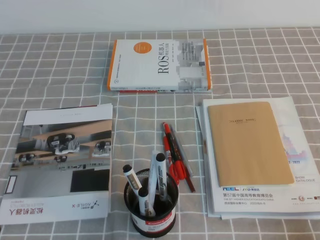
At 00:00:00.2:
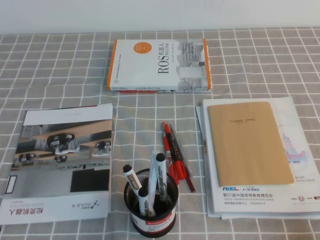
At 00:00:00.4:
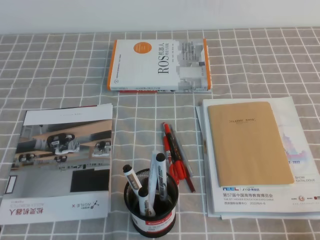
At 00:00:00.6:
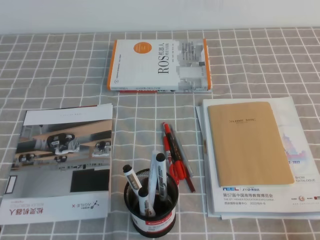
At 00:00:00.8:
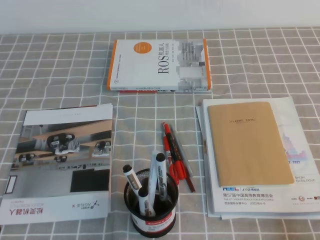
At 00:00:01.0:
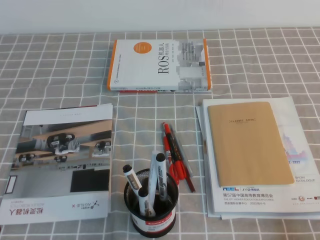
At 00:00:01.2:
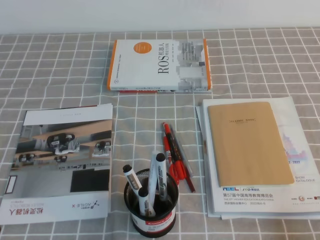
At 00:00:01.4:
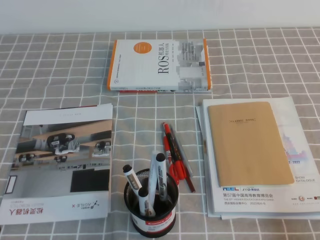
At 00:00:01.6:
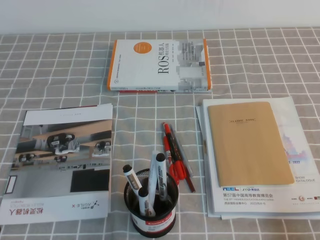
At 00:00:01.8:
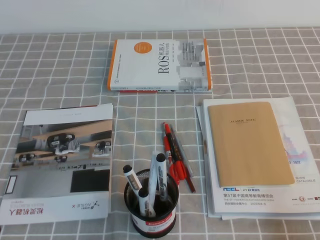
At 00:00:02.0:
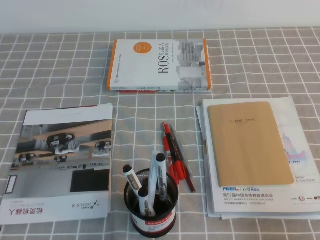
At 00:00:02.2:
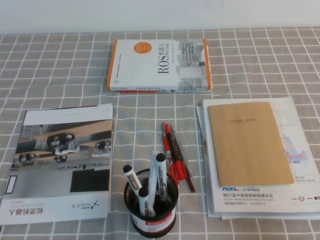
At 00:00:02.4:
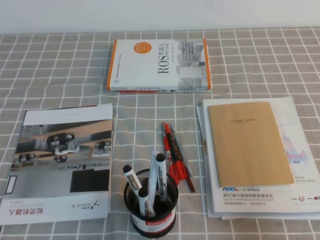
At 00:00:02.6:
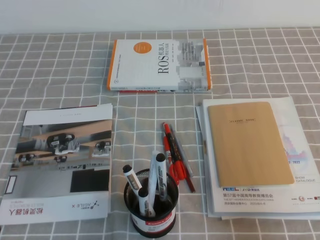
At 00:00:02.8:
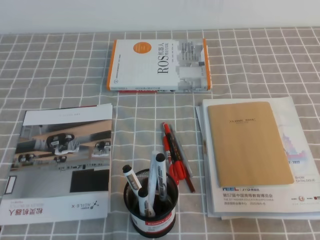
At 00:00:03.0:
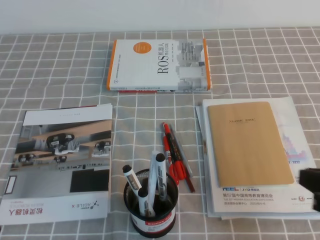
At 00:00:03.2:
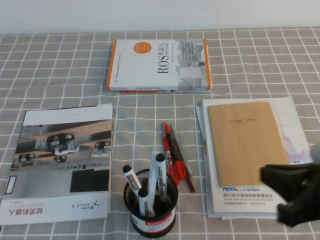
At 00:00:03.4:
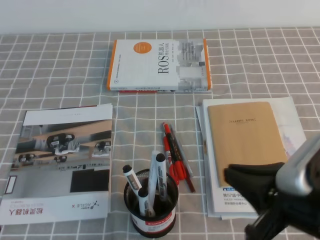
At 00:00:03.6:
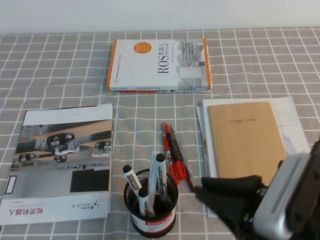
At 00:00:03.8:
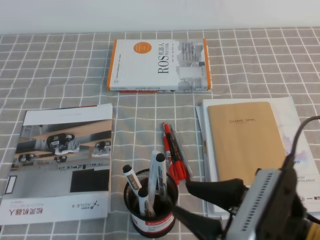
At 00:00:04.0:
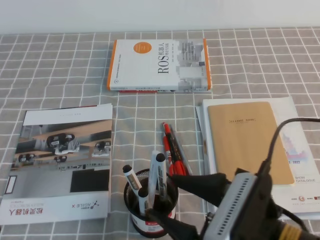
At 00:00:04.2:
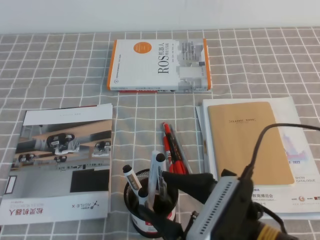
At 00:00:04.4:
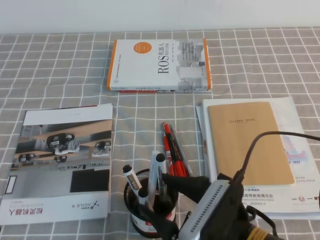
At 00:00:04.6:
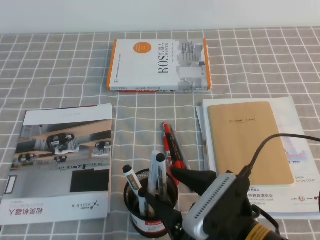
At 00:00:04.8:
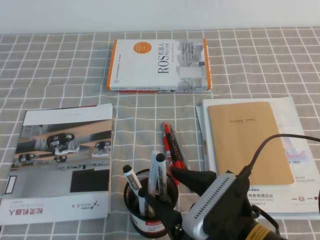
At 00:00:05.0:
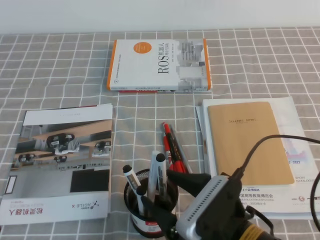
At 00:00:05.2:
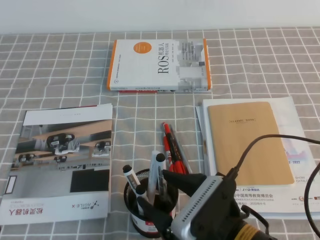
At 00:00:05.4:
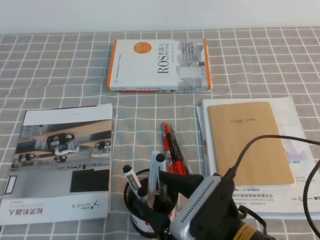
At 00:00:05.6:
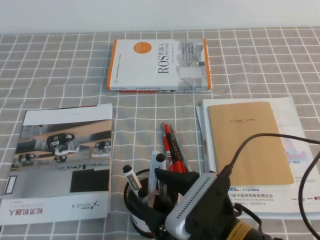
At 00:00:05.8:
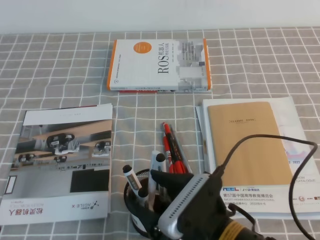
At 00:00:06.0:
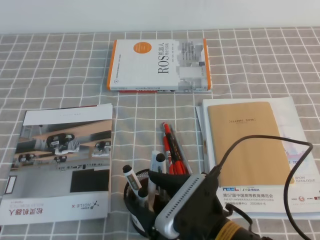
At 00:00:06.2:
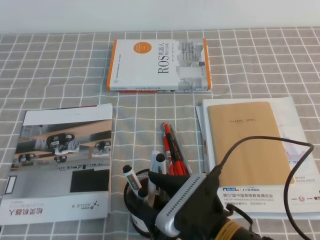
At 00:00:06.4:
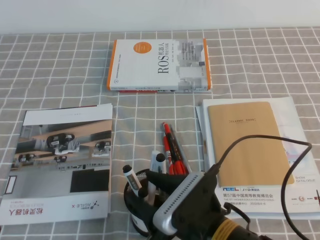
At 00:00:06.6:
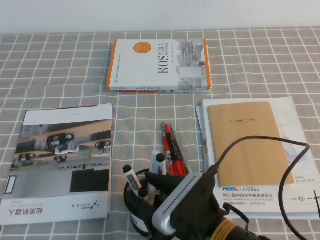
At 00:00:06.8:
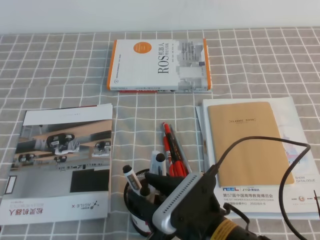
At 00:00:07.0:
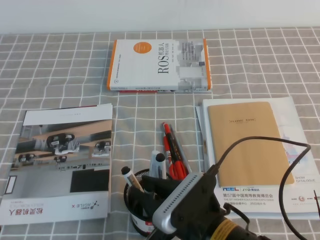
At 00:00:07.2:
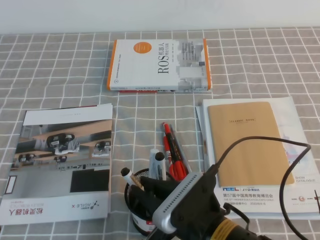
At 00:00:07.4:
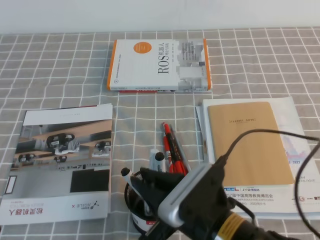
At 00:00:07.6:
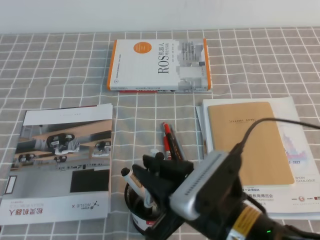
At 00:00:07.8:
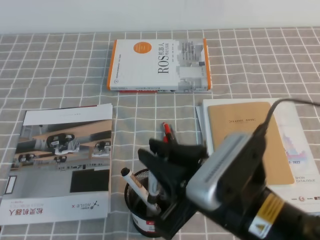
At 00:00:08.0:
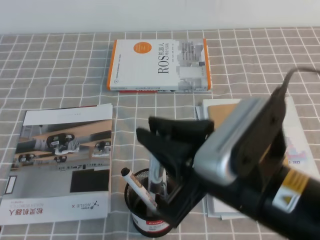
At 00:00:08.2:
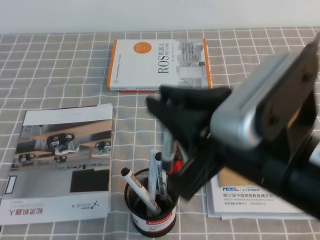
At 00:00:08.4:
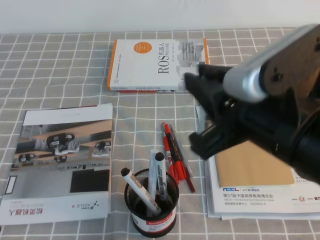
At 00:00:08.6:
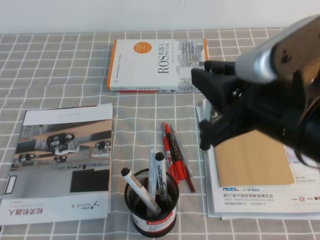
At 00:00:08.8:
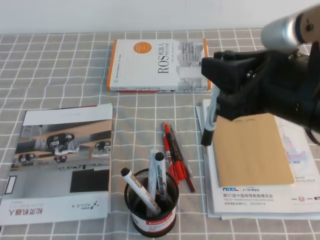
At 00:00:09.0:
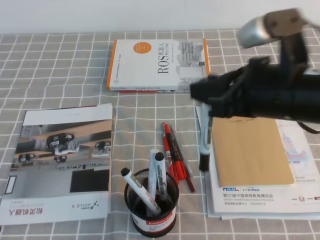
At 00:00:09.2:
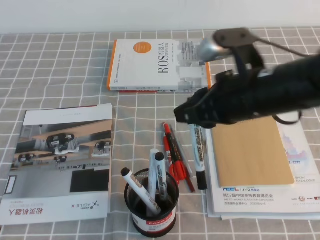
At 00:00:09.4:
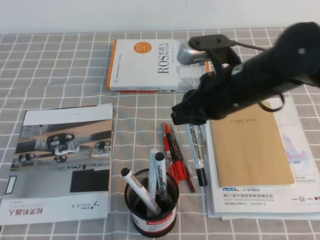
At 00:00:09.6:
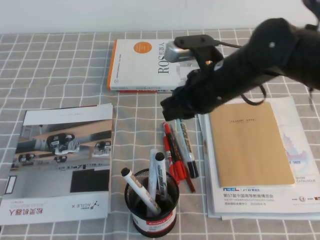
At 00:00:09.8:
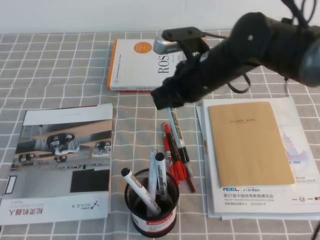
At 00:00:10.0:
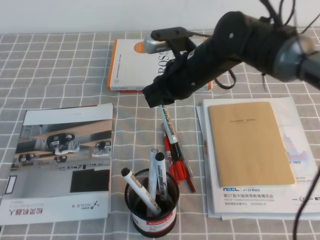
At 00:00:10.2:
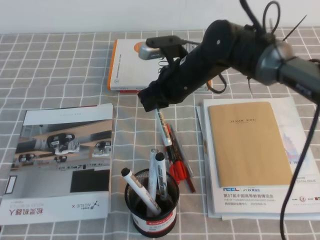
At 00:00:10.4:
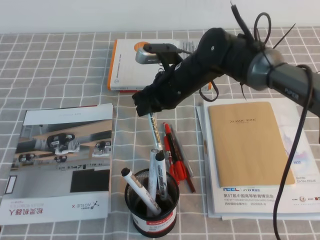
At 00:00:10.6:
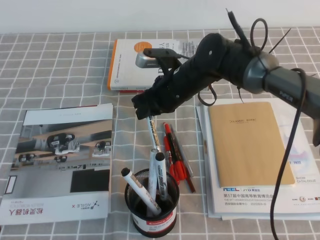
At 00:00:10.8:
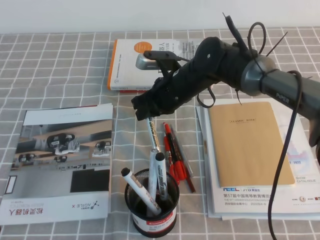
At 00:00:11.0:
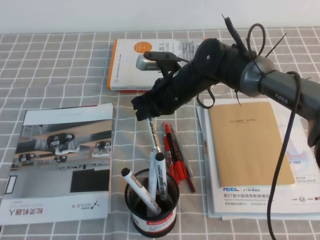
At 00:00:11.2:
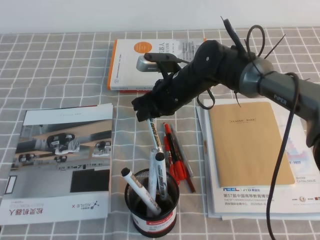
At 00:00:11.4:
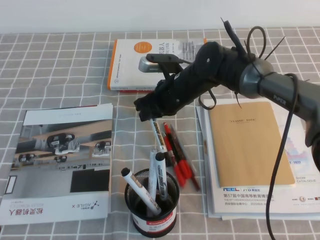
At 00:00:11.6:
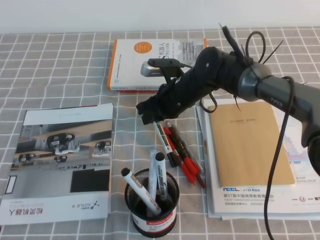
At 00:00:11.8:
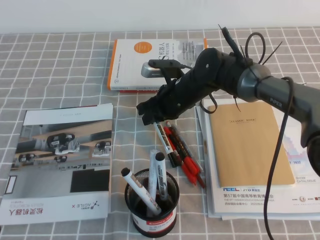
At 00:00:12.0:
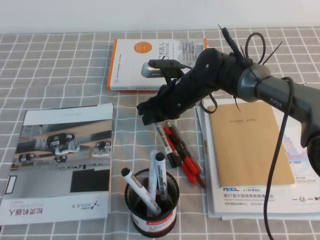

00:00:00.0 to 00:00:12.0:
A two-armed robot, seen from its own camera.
00:00:01.6 to 00:00:03.0: The right gripper travels forward, upward and to the left by roughly 10 cm.
00:00:03.0 to 00:00:04.4: The right gripper heads to the left, covering approximately 20 cm, and opens its fingers.
00:00:04.4 to 00:00:06.0: The grippers stay close to where they were, moving slightly.
00:00:06.0 to 00:00:07.6: The right gripper ends up approximately 5 cm from where it was, and closes up.
00:00:07.6 to 00:00:09.0: The right gripper shifts about 15 cm upward, forward and to the right.
00:00:09.0 to 00:00:10.4: The right gripper is displaced forward, downward and to the left by approximately 25 cm.
00:00:10.4 to 00:00:12.0: The right gripper goes about 5 cm downward.

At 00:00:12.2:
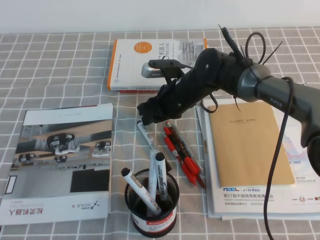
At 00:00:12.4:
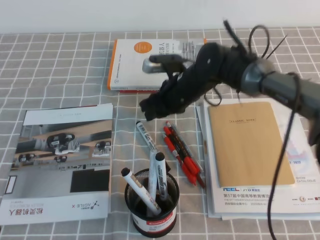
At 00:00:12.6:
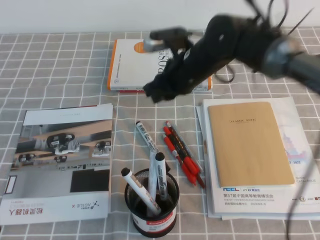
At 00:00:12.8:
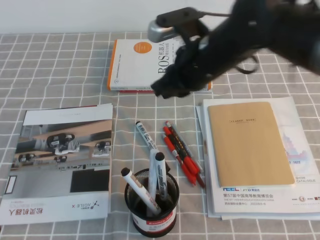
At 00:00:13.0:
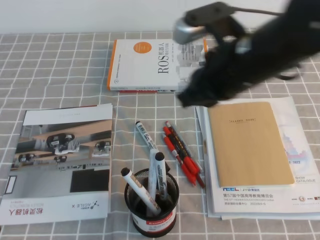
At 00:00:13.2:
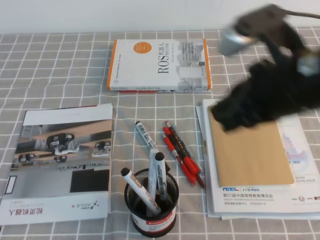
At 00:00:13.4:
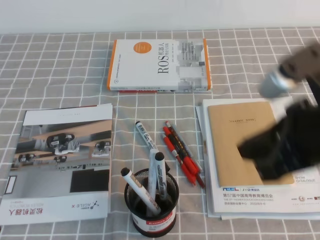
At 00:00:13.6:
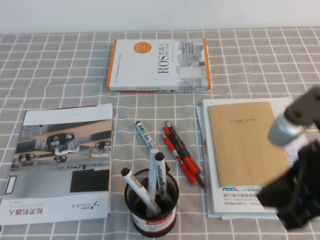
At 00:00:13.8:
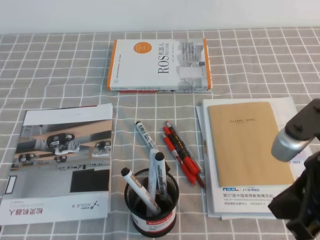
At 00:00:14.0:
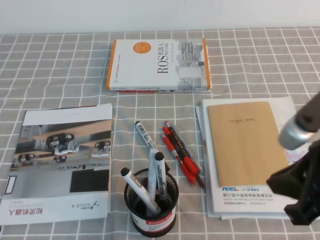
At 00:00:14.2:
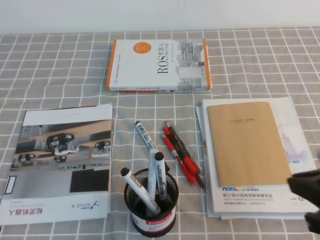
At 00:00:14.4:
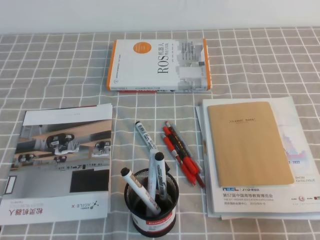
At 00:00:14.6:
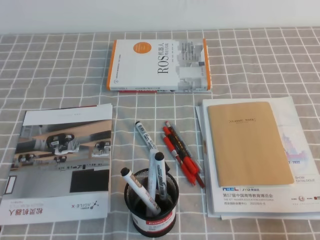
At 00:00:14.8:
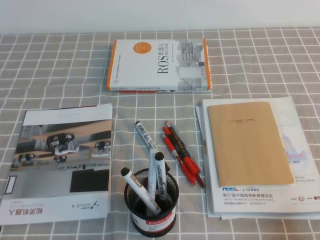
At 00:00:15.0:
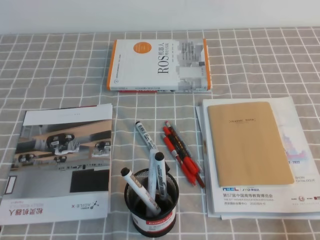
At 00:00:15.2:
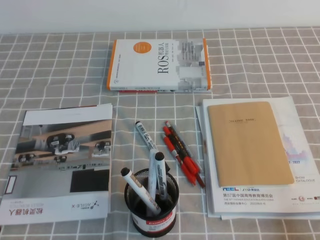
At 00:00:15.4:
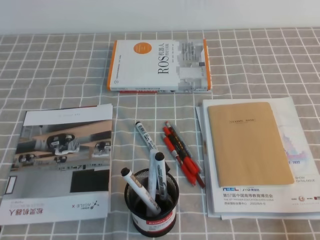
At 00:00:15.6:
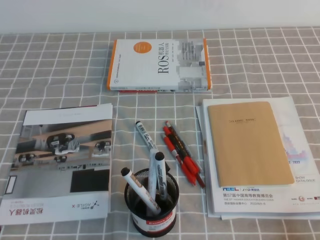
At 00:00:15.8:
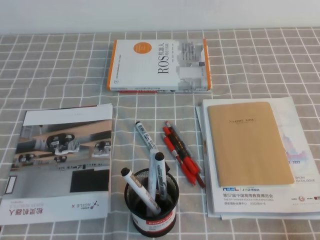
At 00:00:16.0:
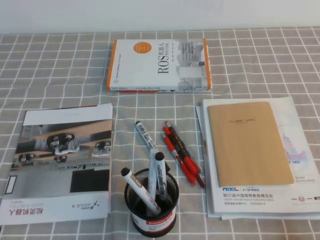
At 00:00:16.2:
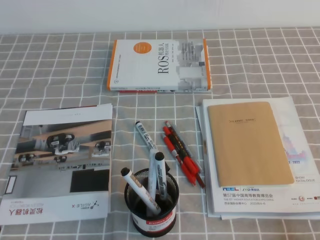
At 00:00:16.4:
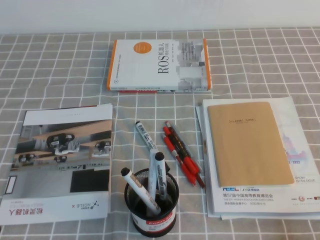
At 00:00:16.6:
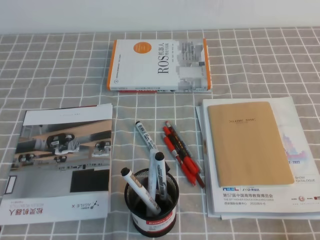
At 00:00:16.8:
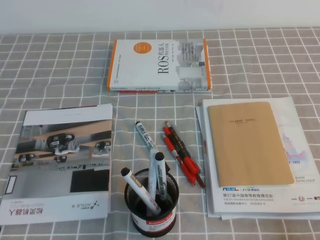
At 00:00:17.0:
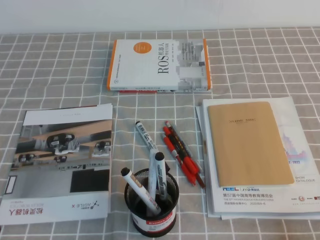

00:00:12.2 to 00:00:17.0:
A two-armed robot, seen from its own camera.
Step, 00:00:12.2 to 00:00:17.0: Pick up the pen from the pen holder.
00:00:12.2 to 00:00:13.8: The right gripper travels backward, to the right and upward by roughly 35 cm, and closes.
00:00:13.8 to 00:00:15.4: The right gripper is displaced downward, to the right and backward by about 20 cm.
